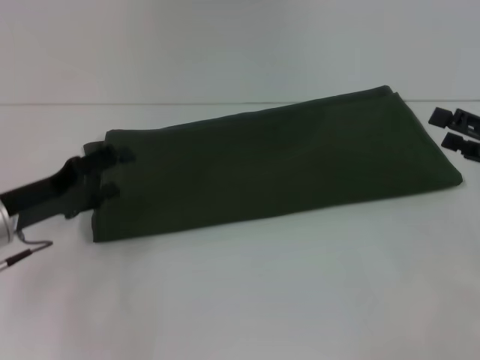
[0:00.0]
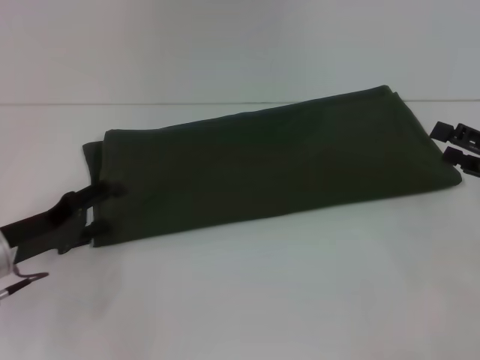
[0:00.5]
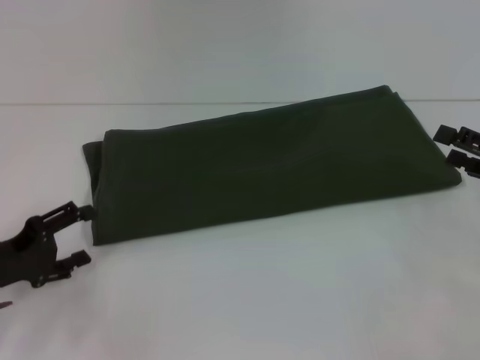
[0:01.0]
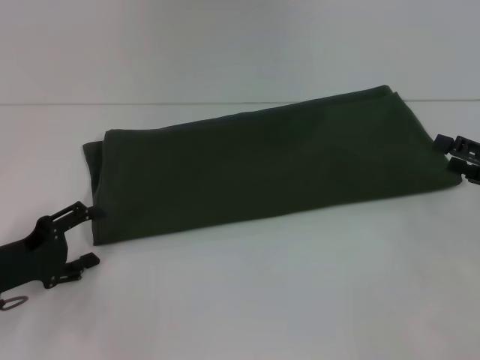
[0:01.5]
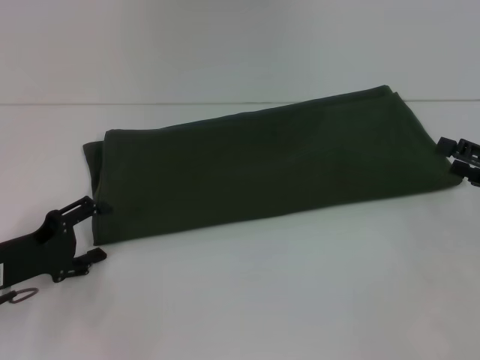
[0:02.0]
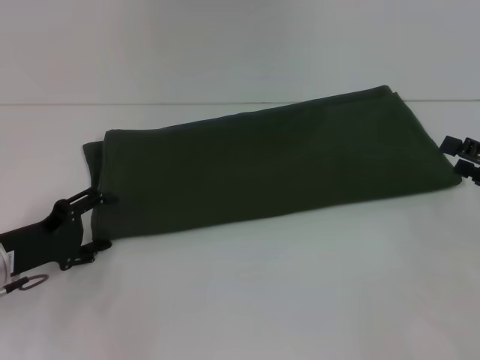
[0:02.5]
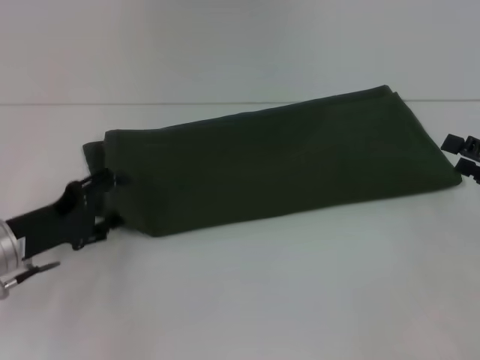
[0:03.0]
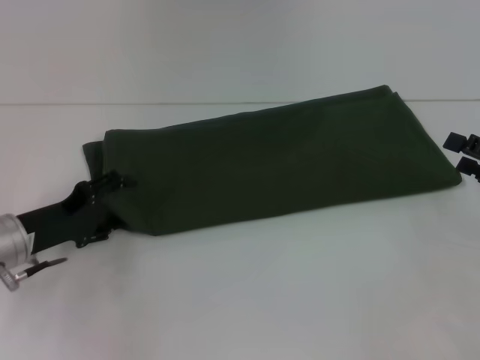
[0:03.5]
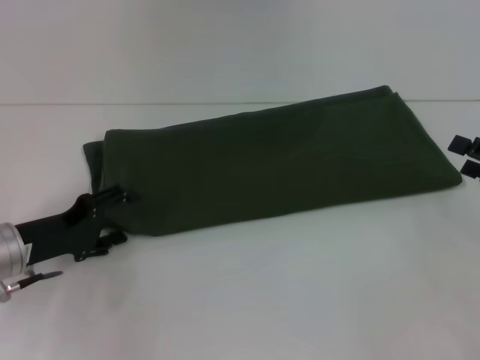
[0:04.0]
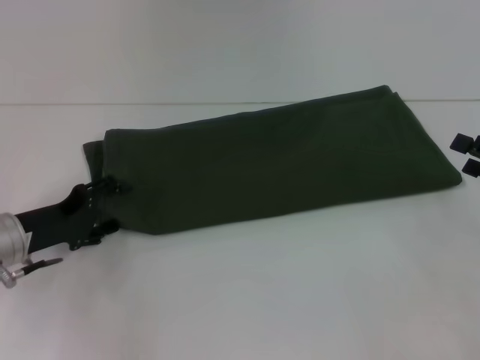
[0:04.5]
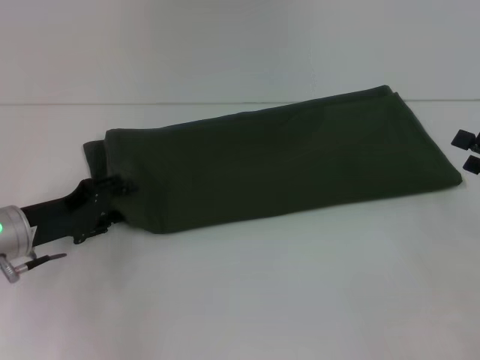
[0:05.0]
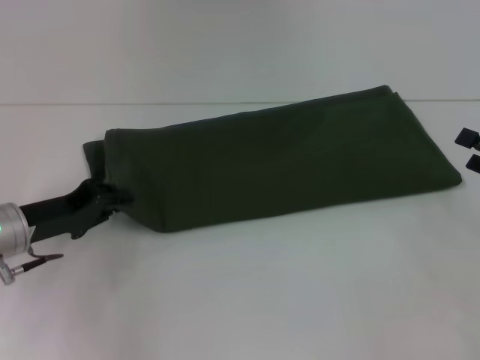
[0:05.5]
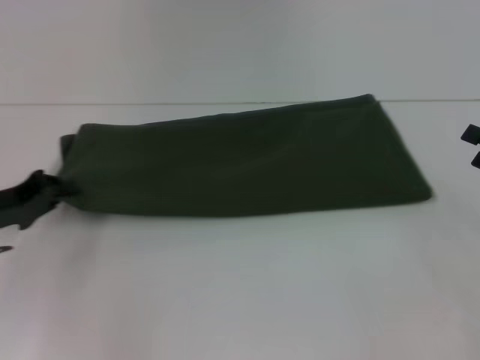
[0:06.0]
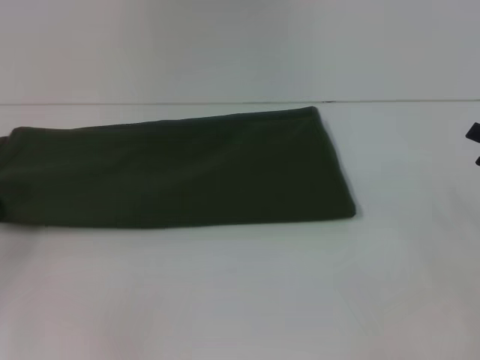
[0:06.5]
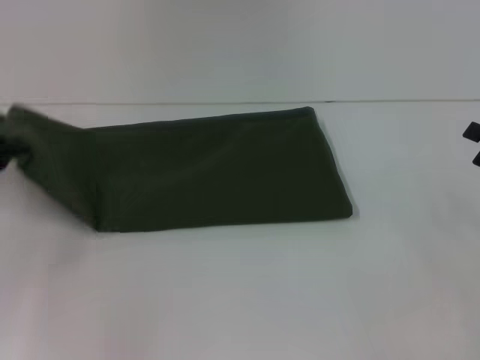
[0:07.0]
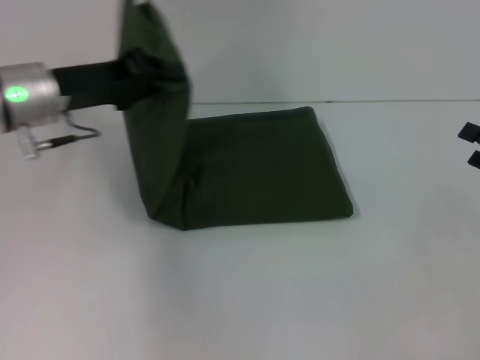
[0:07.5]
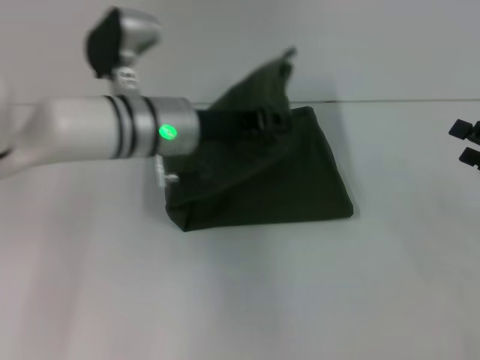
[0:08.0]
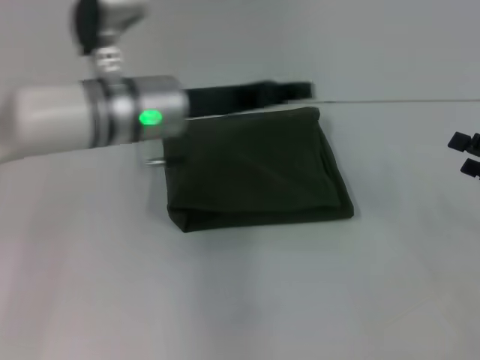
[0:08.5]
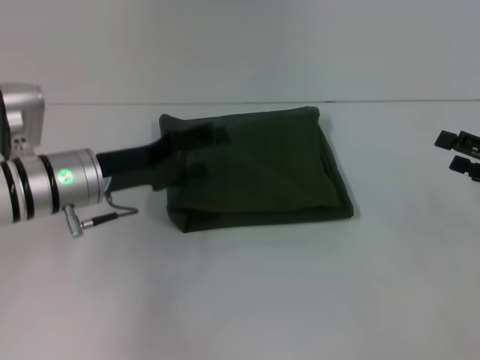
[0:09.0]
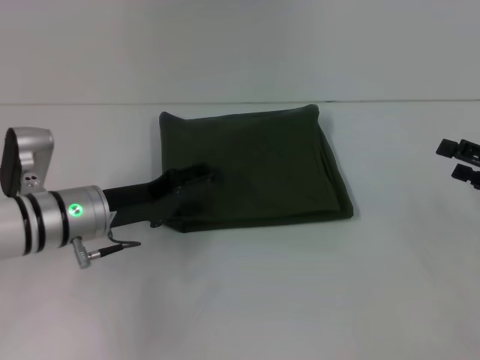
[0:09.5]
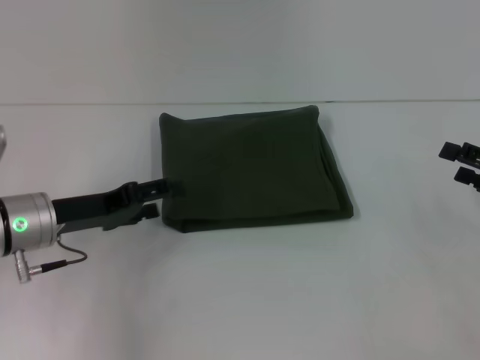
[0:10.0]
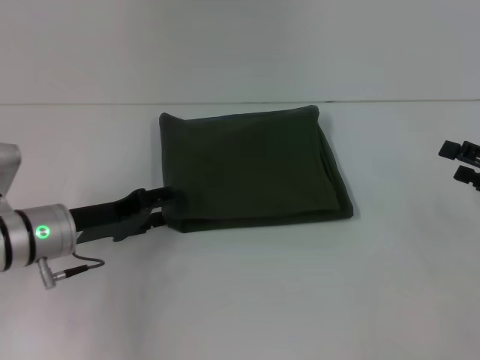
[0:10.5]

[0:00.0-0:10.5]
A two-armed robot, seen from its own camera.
Step, 0:00.0 to 0:08.0: Fold the clothes with your left hand.
0:00.0 to 0:02.0: The left gripper changes place by approximately 5 cm.
0:02.0 to 0:04.0: The grippers stay close to where they were, moving slightly.
0:04.0 to 0:06.5: The left gripper moves to the left, approximately 10 cm, and closes.
0:06.5 to 0:08.5: The left gripper goes some 25 cm to the right, and opens.
0:08.5 to 0:10.5: The left gripper goes some 15 cm downward, to the left and backward, and opens its fingers.

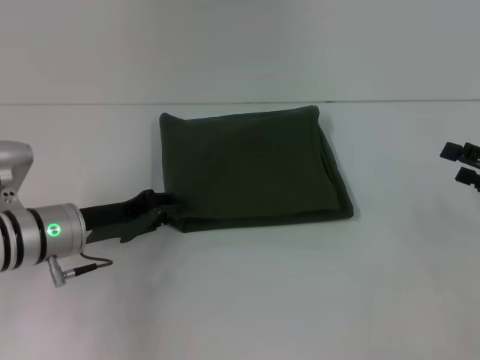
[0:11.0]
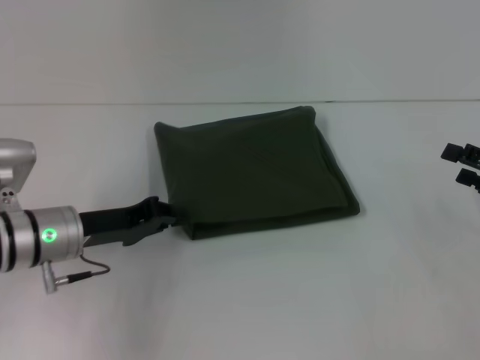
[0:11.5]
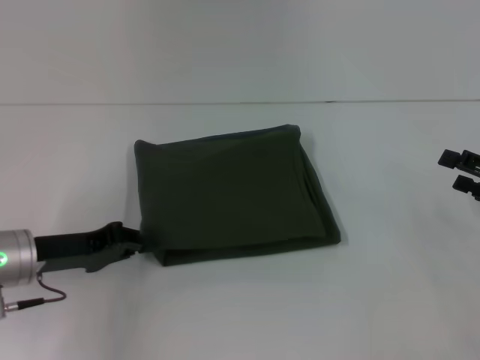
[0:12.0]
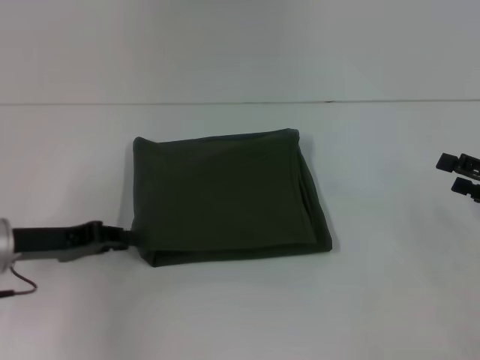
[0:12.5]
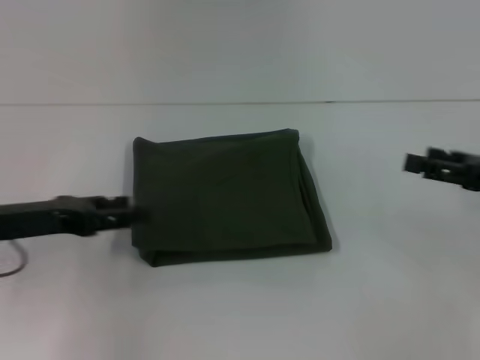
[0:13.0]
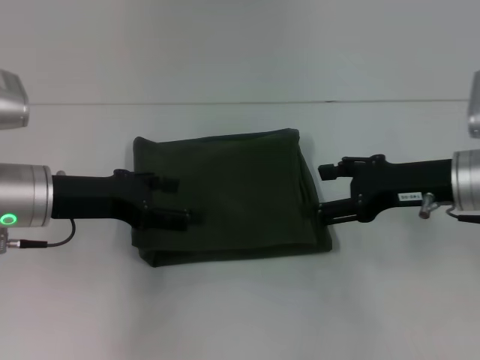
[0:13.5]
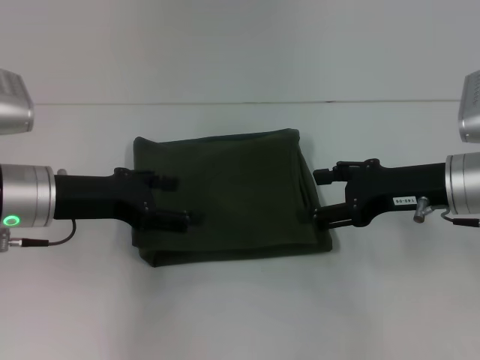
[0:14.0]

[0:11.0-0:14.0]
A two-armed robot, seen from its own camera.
0:11.0 to 0:12.5: The left gripper is displaced to the left by some 5 cm, and closes.
0:12.5 to 0:14.0: The left gripper is displaced upward and to the right by some 5 cm, and opens its fingers. The right gripper travels to the left by approximately 15 cm.

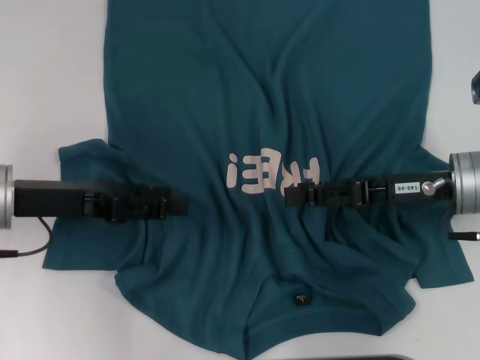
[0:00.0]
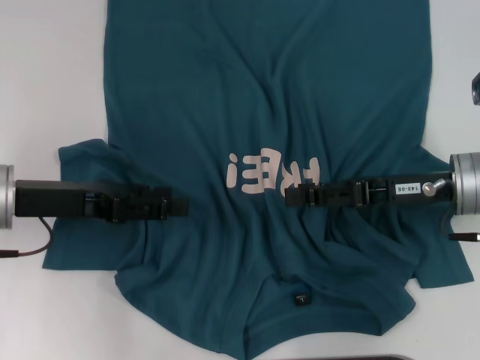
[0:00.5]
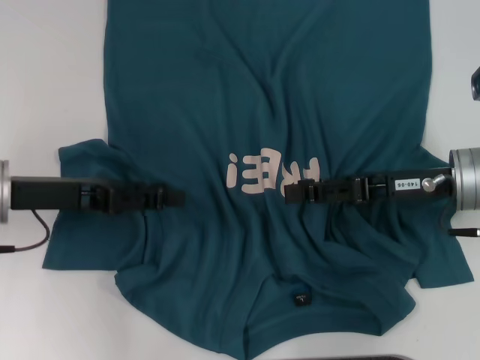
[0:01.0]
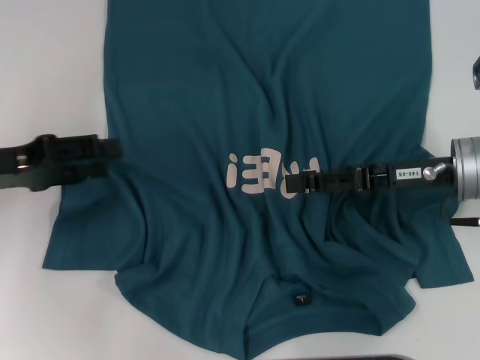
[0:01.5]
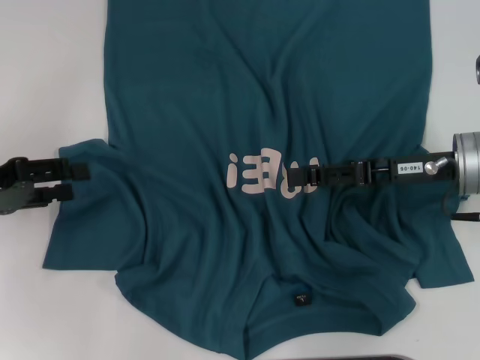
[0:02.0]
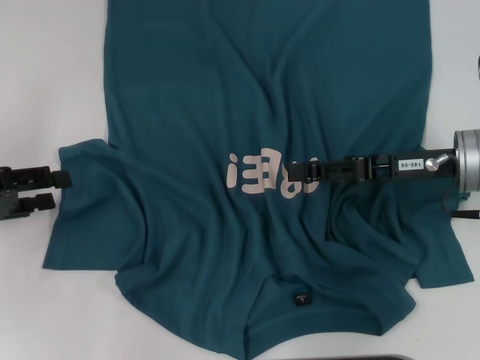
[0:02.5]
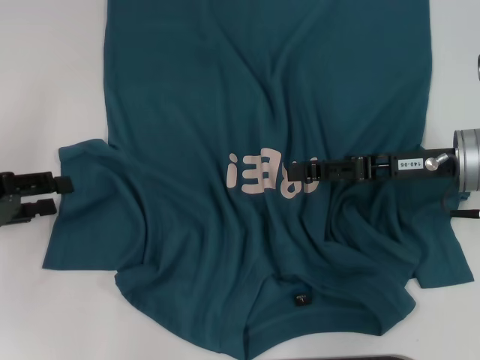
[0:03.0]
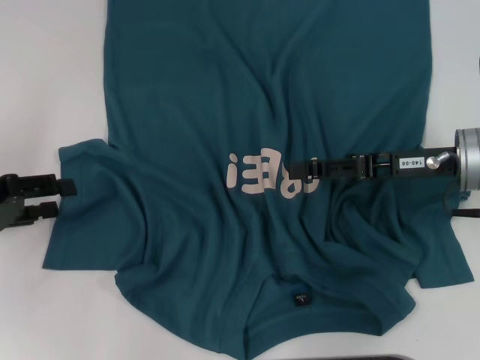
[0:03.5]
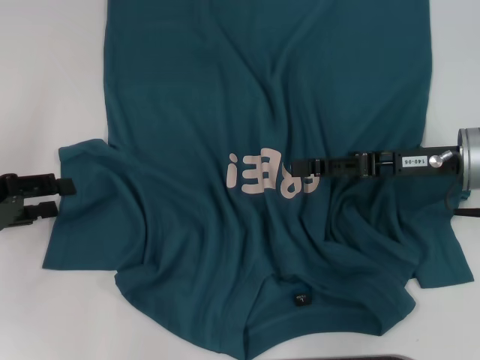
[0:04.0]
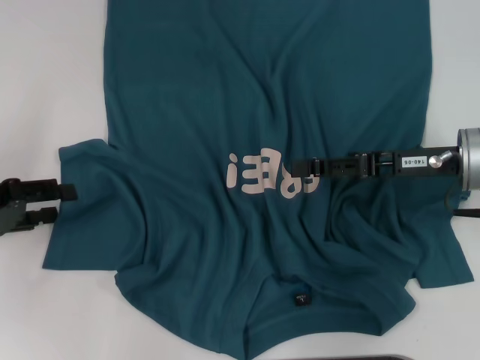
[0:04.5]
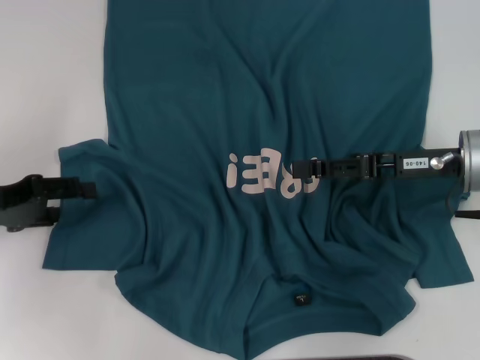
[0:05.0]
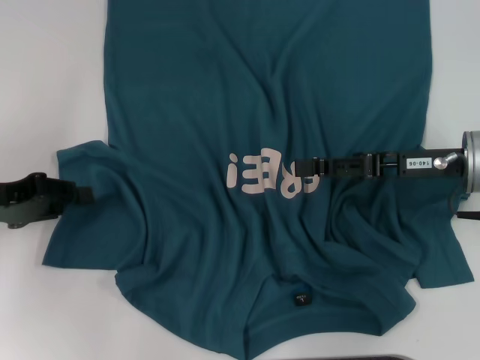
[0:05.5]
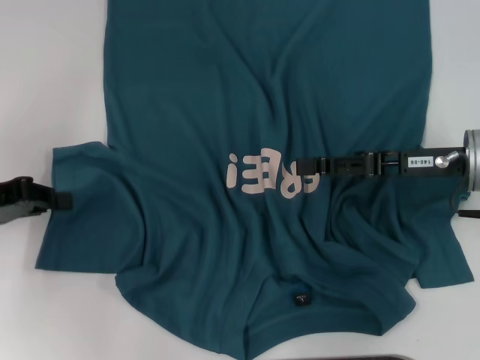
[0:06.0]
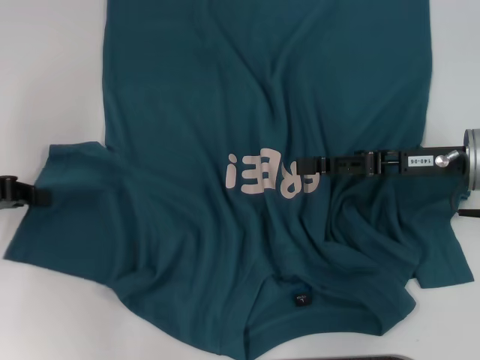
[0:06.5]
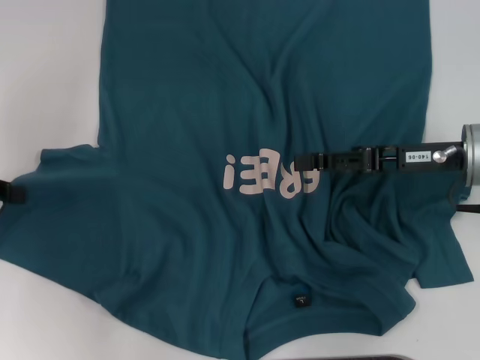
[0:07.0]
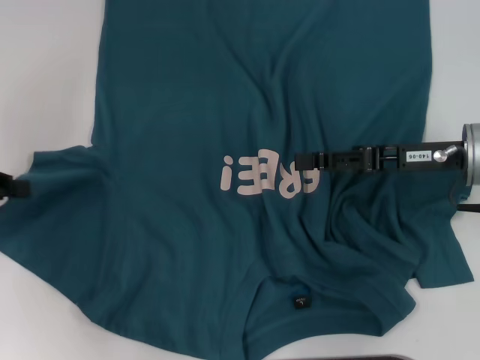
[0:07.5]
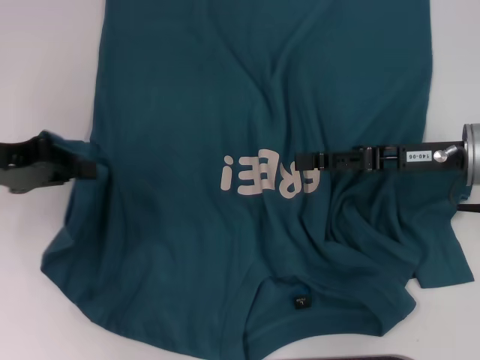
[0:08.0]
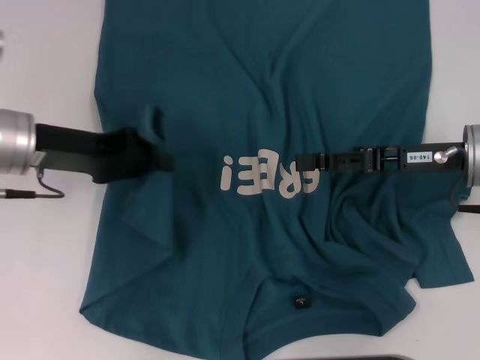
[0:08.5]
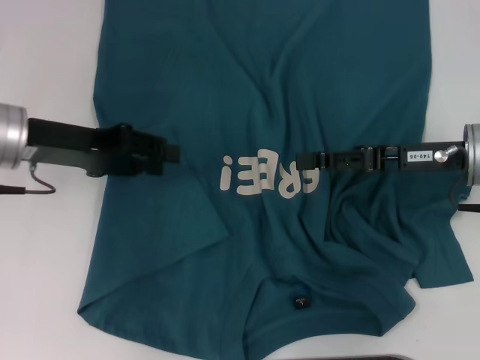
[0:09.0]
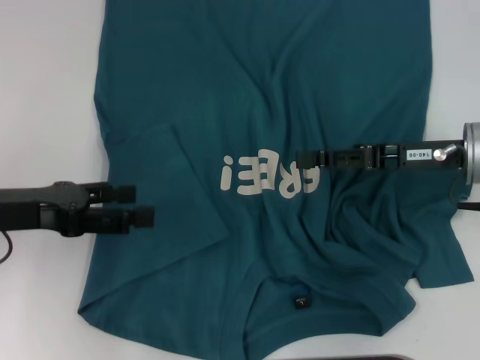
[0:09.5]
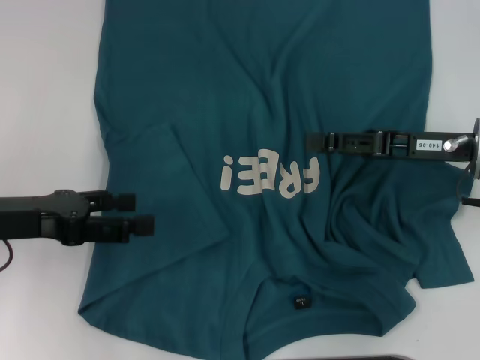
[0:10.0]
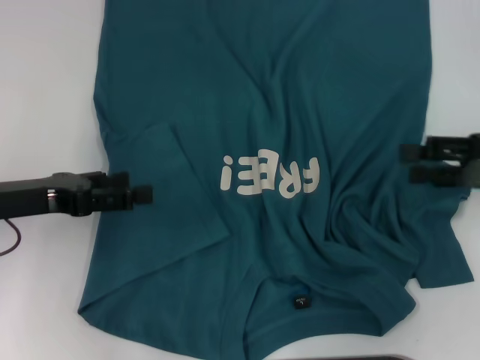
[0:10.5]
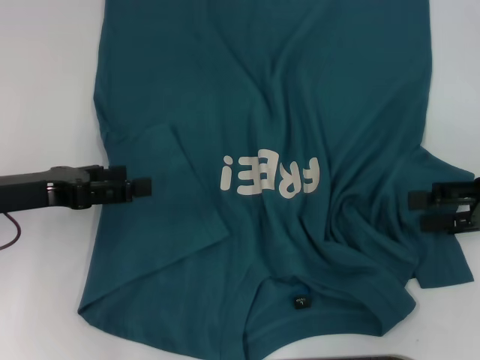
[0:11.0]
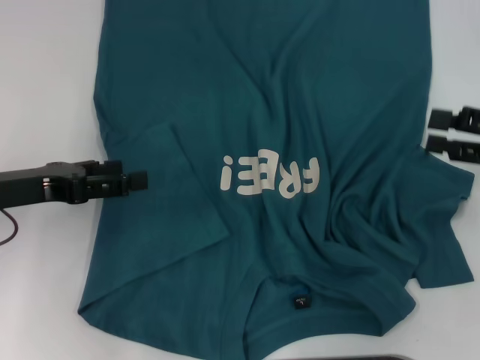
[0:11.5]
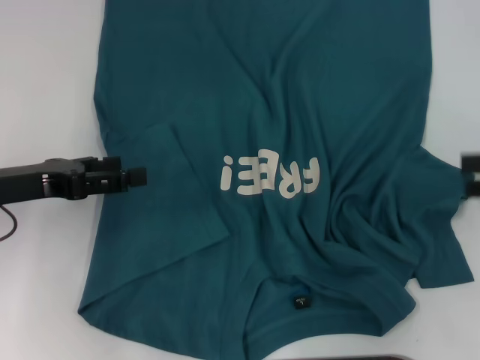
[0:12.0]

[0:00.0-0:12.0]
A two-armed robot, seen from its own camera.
Step, 0:00.0 to 0:08.5: Fold the bottom left sleeve with your left hand.
0:00.0 to 0:02.0: The left gripper goes roughly 10 cm to the left.
0:02.0 to 0:04.0: The grippers move only a little.
0:04.0 to 0:06.0: The left gripper closes its fingers.
0:06.0 to 0:08.0: The left gripper changes place by roughly 5 cm.
0:08.0 to 0:10.0: The left gripper moves roughly 5 cm, and opens its fingers.
0:10.0 to 0:12.0: The right gripper heads to the right, covering approximately 15 cm.
